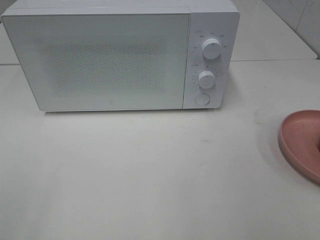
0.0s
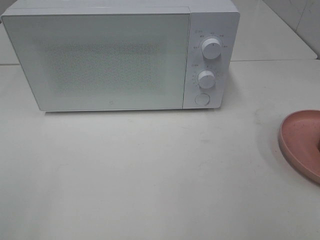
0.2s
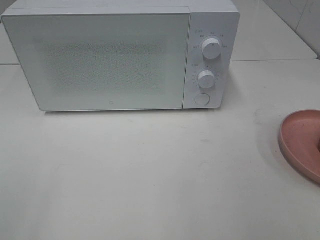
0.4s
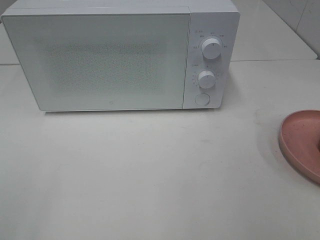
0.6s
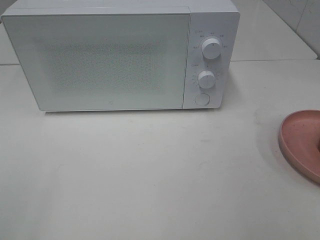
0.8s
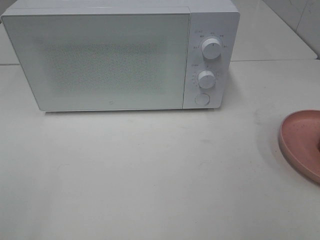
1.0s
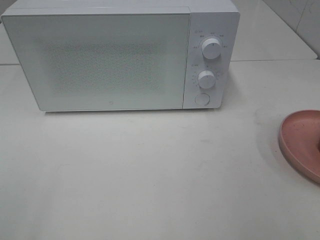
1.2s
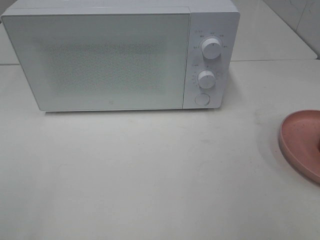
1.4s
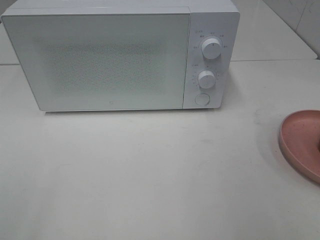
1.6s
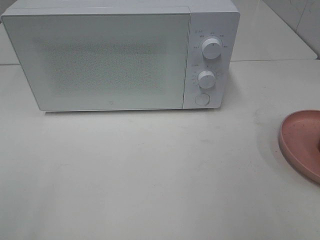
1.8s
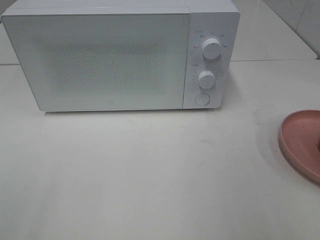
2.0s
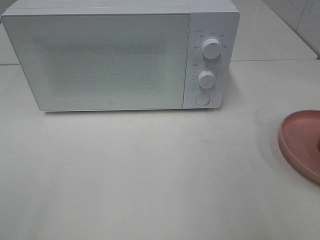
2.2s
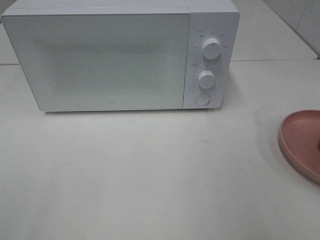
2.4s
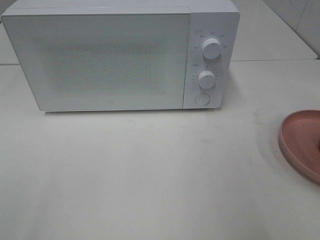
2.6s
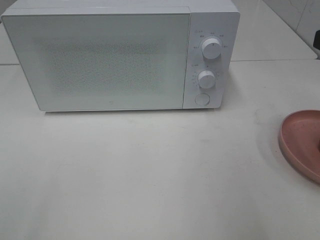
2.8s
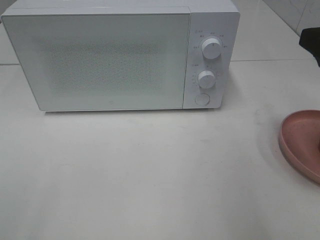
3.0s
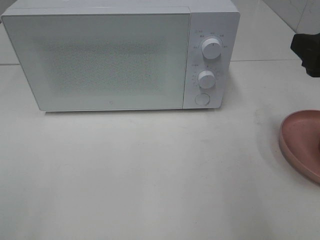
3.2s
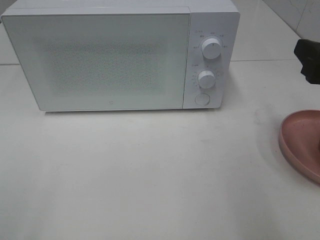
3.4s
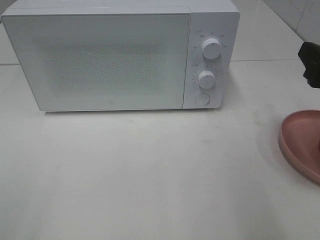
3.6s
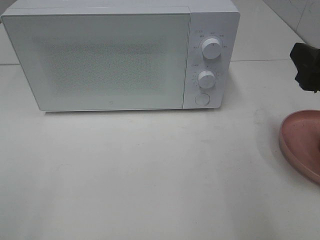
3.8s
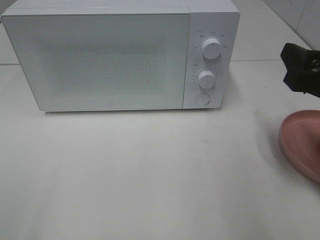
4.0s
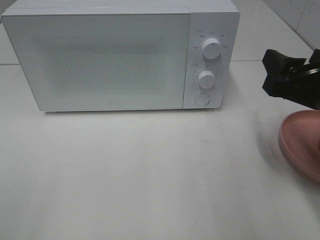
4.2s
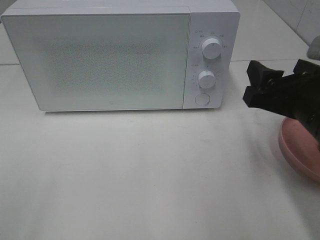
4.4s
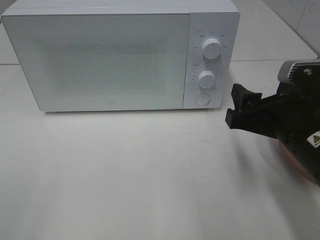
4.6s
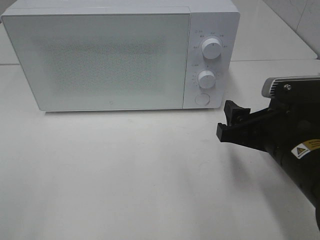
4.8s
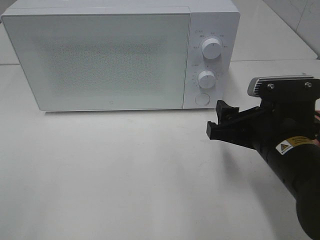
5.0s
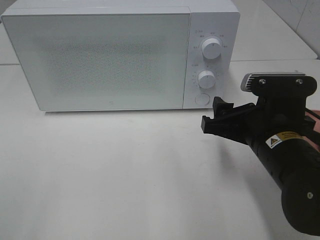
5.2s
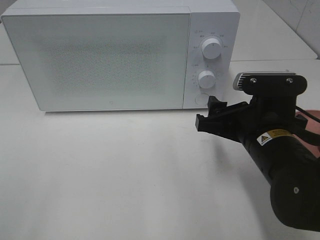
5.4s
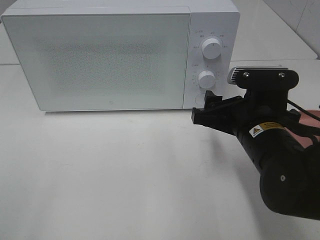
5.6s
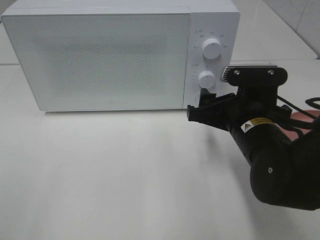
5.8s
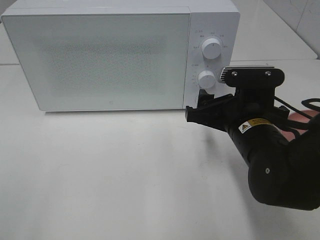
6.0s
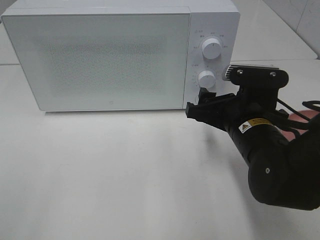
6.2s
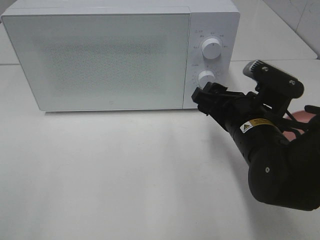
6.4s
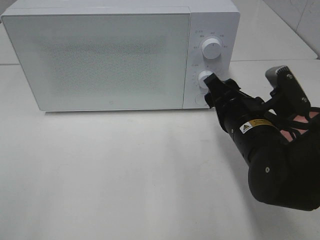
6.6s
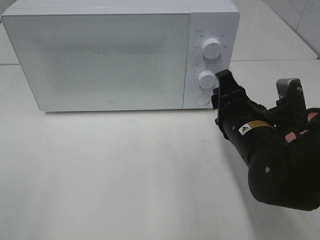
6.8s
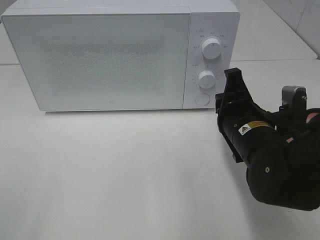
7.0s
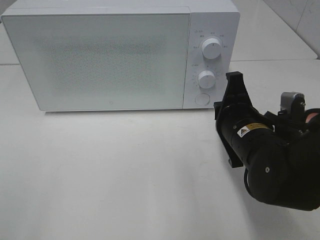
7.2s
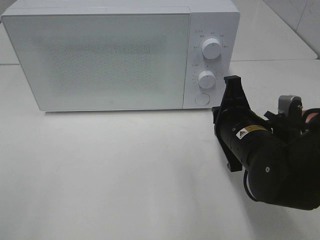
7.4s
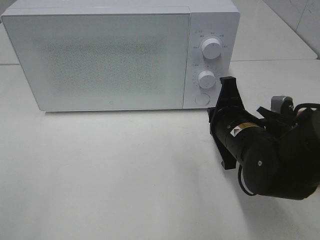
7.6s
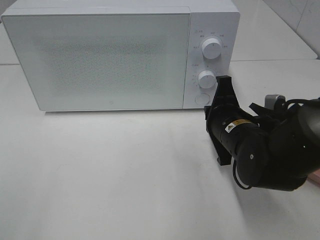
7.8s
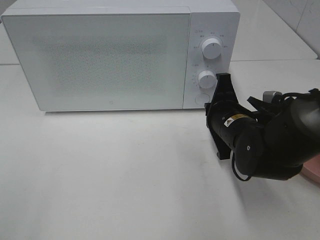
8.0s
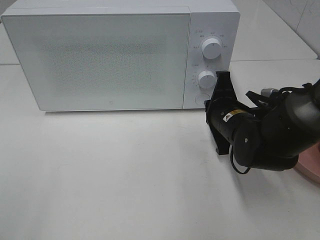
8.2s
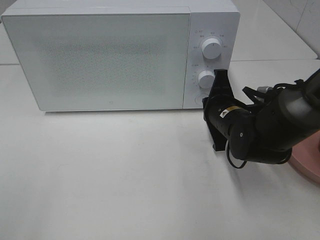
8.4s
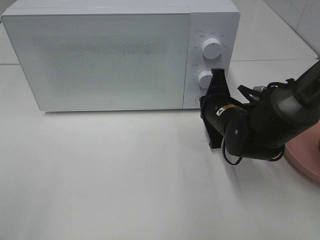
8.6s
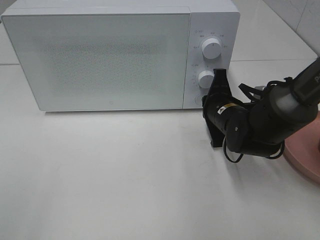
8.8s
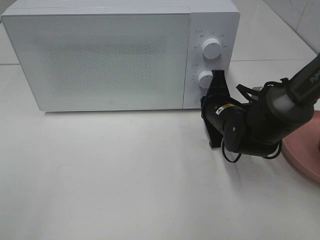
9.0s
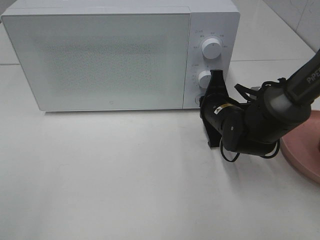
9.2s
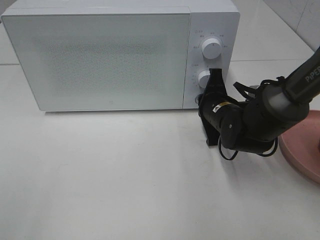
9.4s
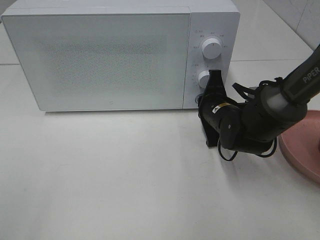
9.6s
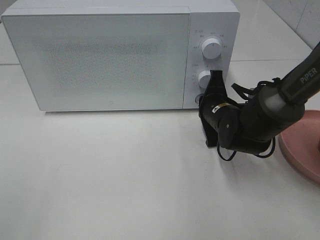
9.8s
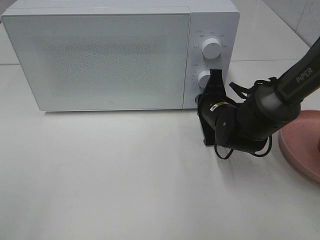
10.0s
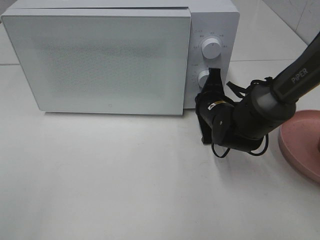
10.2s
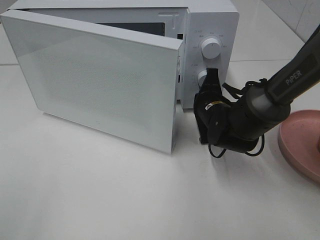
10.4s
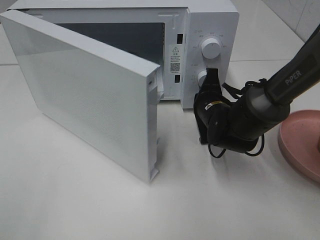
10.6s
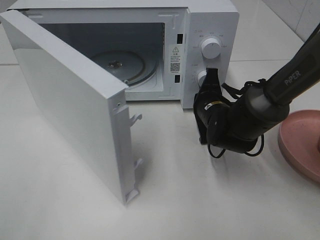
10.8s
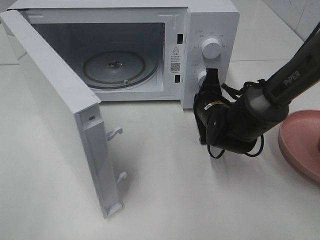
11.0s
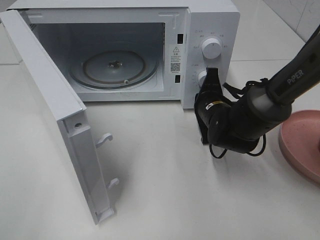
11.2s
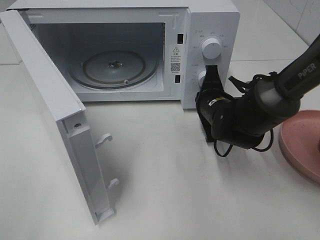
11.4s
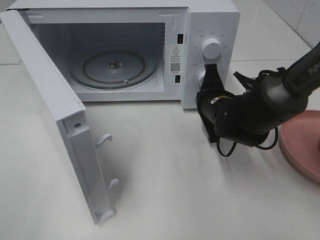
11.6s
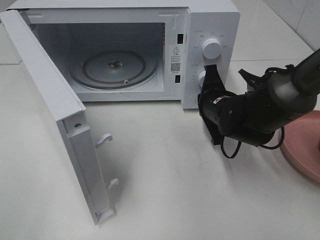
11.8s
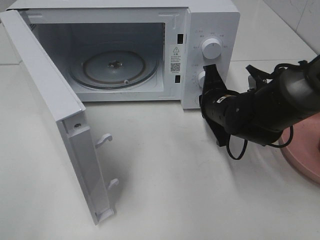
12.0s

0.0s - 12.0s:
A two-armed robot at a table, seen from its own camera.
Task of the whole recording: Heat the burger.
1.6s - 3.0s: The right gripper heads forward, covering approximately 15 cm.
3.0s - 4.4s: The right gripper travels downward and to the left by some 10 cm.
4.4s - 6.0s: The right gripper travels to the left and downward by some 10 cm.
6.0s - 7.6s: The right gripper closes up.
7.6s - 9.0s: The right gripper shifts about 10 cm forward.
9.0s - 10.4s: The grippers move only a little.

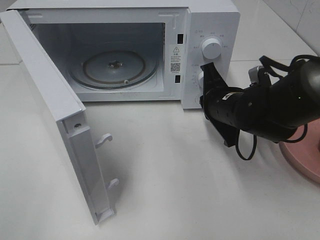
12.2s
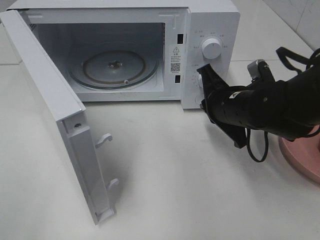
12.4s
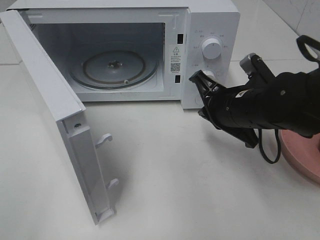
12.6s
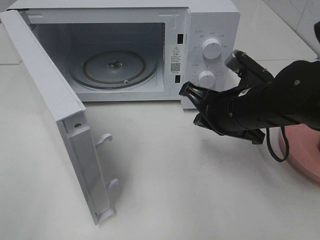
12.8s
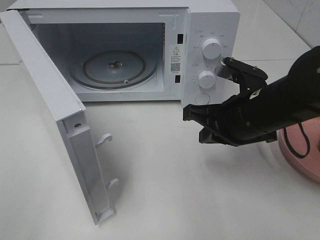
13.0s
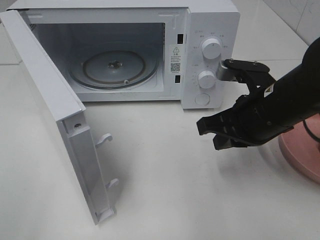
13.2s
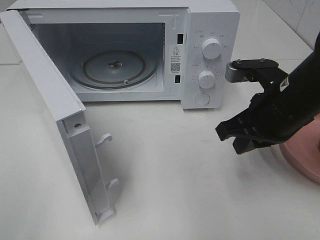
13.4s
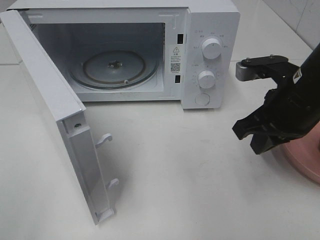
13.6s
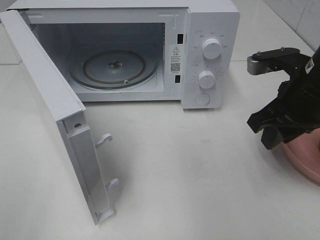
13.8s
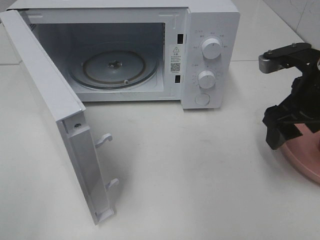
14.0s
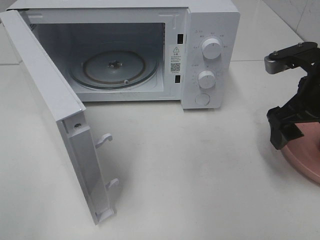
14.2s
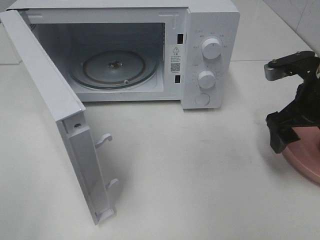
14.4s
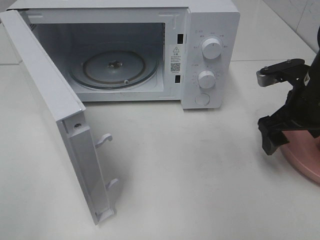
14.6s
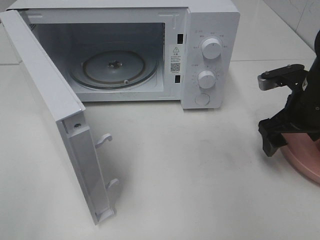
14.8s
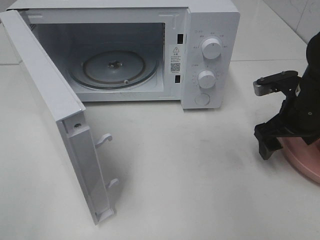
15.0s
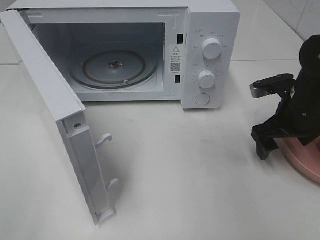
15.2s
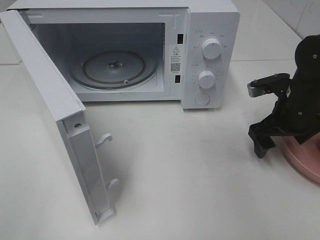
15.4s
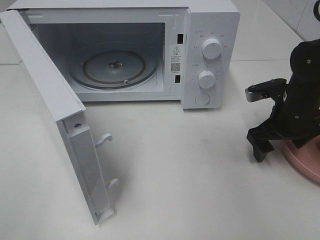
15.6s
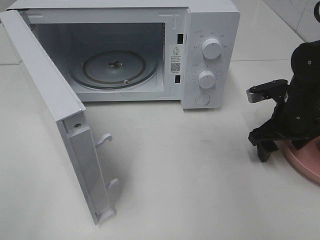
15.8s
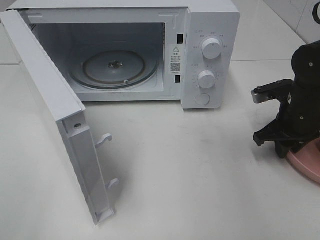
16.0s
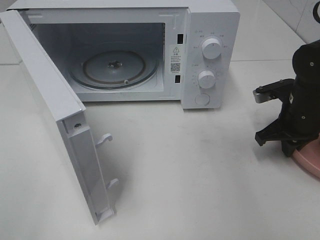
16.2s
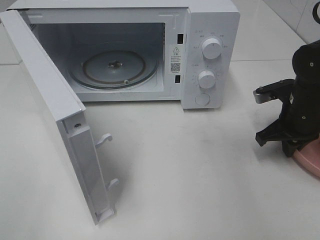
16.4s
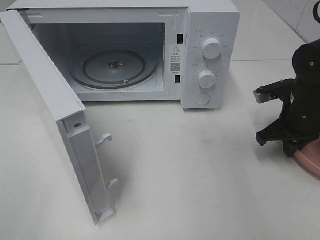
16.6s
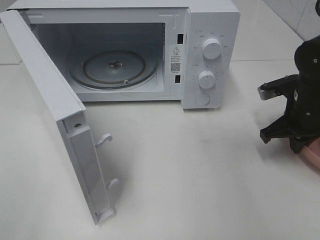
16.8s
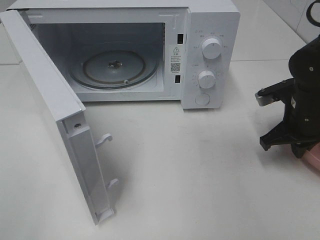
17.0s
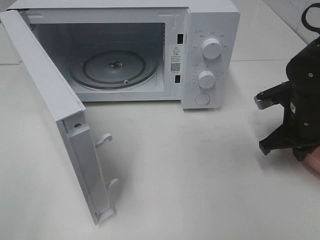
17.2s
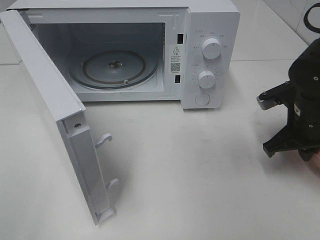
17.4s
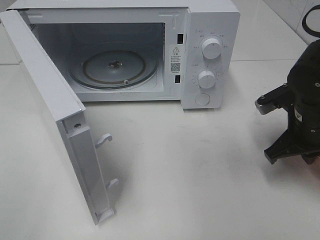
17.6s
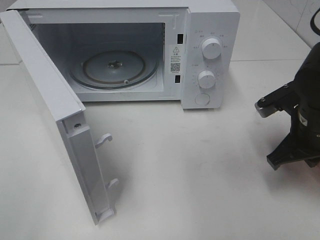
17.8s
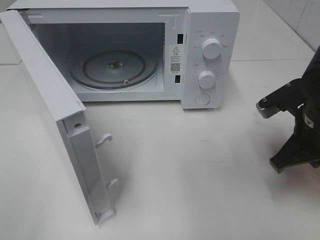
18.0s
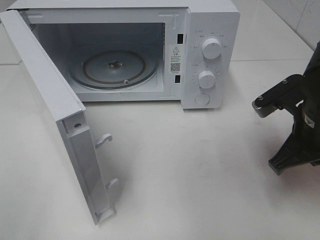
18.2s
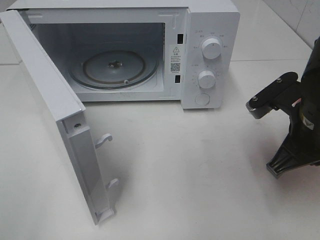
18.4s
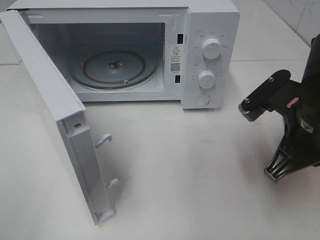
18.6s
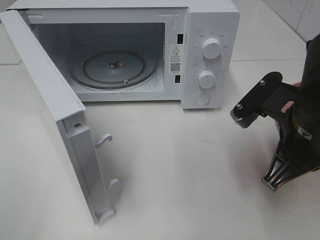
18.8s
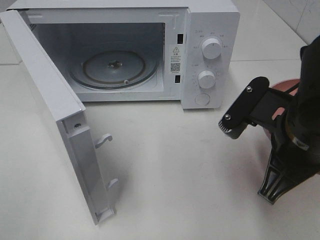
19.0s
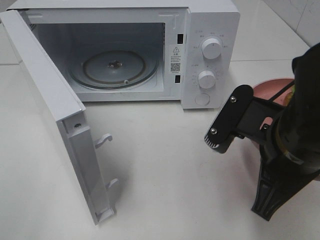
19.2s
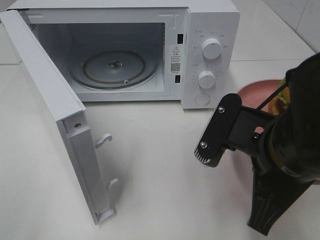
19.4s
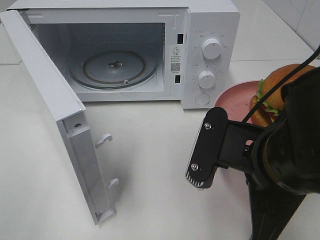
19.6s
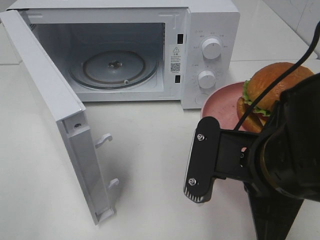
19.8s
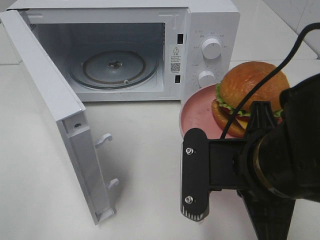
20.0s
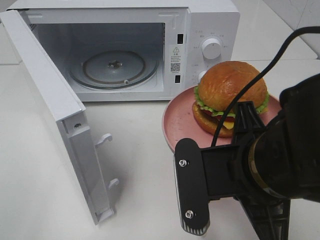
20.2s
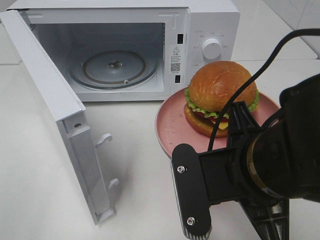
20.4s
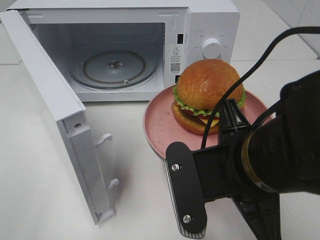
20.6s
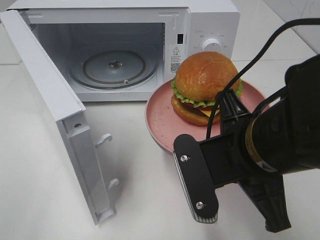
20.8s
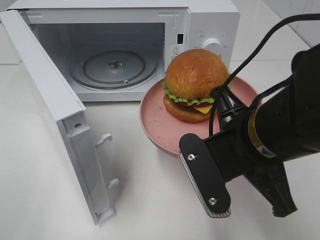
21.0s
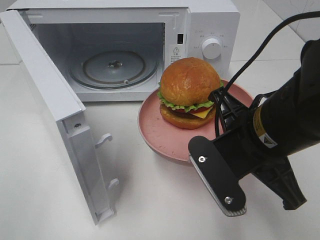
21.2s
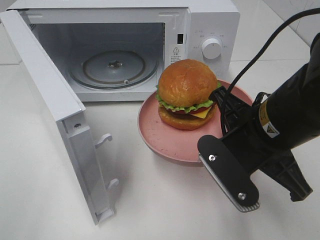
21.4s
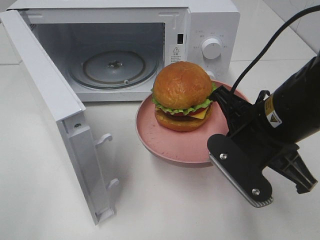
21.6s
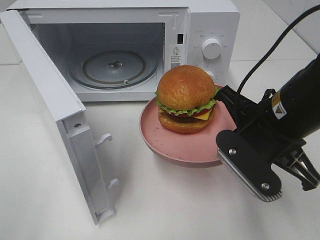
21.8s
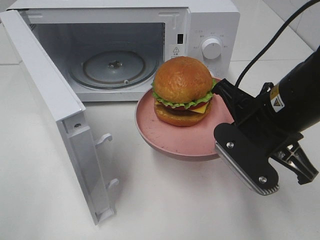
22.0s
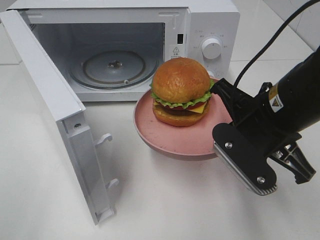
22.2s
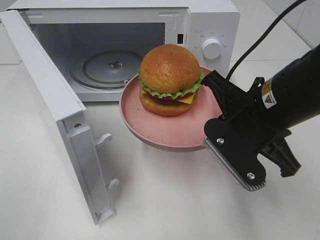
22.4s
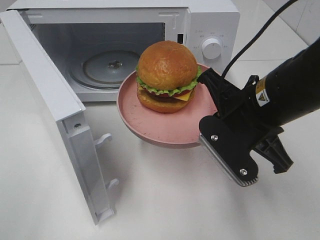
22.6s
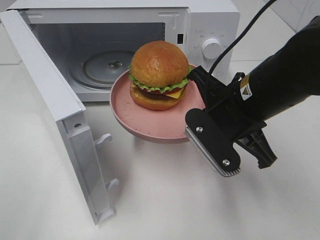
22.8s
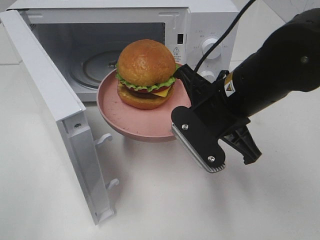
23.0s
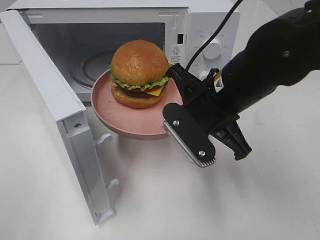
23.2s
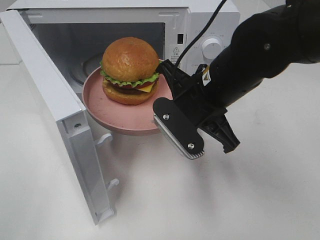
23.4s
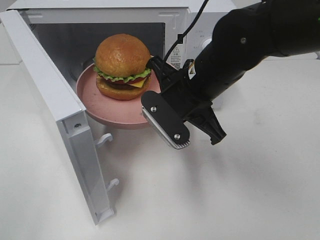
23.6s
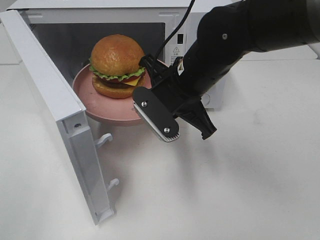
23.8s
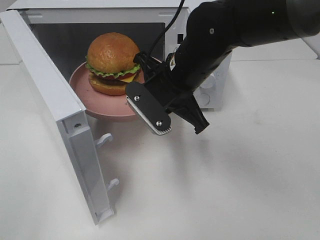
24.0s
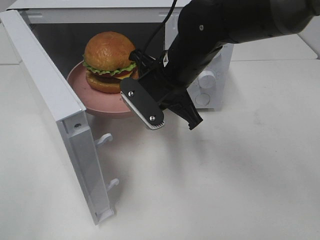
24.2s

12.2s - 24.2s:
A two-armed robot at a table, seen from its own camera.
Task of the whole recording: Heat the burger.
Step, 12.2s - 17.0s: Right hand: grab the plate with the hamburger.
12.2s - 13.8s: The right gripper travels upward, to the right and backward by approximately 15 cm, and opens.
13.8s - 15.2s: The right gripper goes about 10 cm downward and forward, and opens up.
15.2s - 16.6s: The right gripper closes its fingers.
16.6s - 18.2s: The right gripper shifts roughly 15 cm backward, upward and to the left.
18.2s - 19.8s: The right gripper moves backward and to the left, some 15 cm.
19.8s - 21.2s: The right gripper shifts about 5 cm forward.
22.6s - 24.2s: The right gripper travels forward and to the left by approximately 15 cm.
